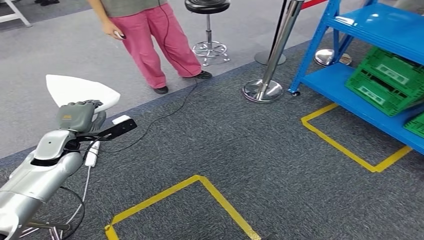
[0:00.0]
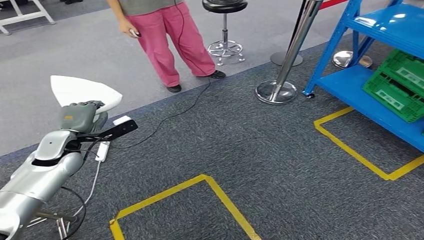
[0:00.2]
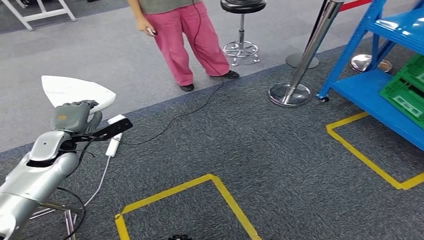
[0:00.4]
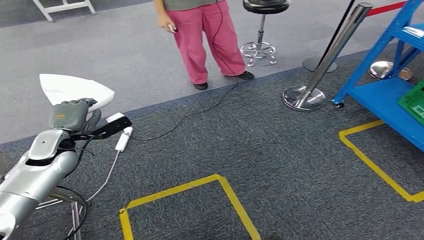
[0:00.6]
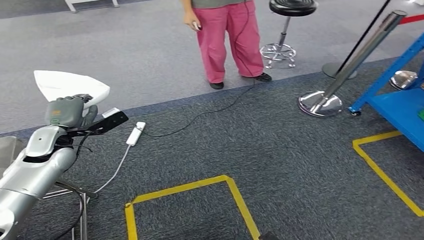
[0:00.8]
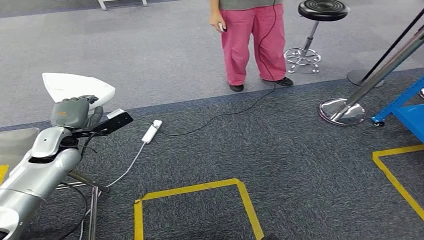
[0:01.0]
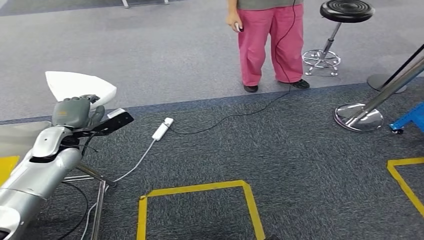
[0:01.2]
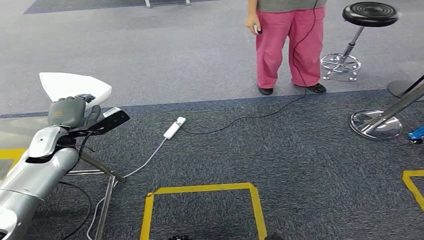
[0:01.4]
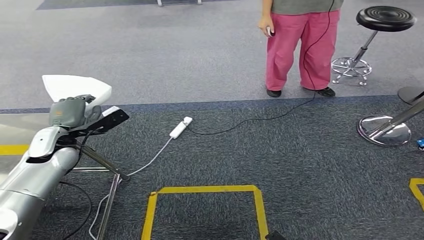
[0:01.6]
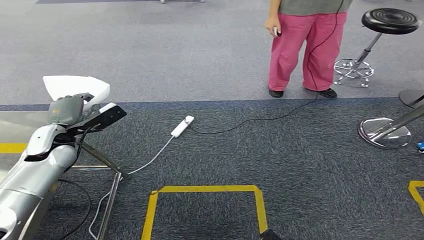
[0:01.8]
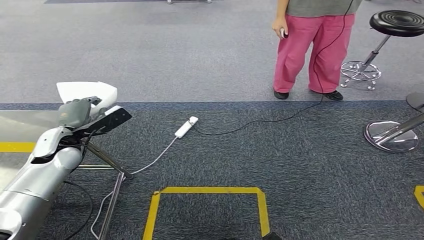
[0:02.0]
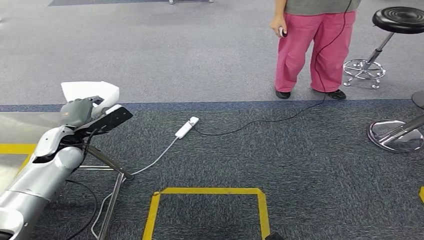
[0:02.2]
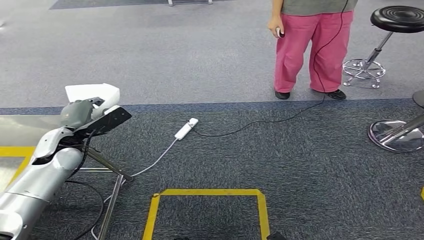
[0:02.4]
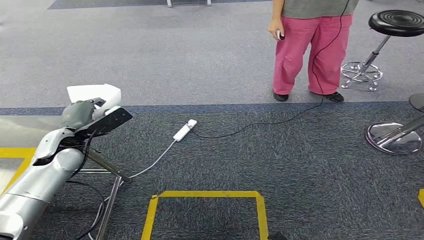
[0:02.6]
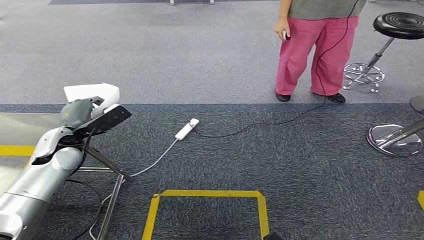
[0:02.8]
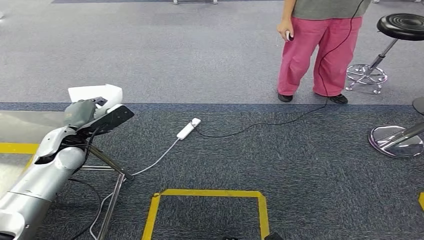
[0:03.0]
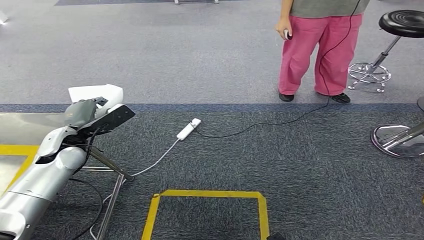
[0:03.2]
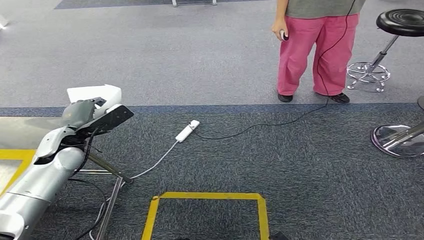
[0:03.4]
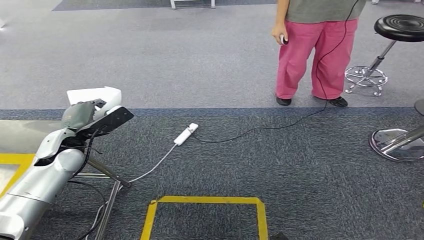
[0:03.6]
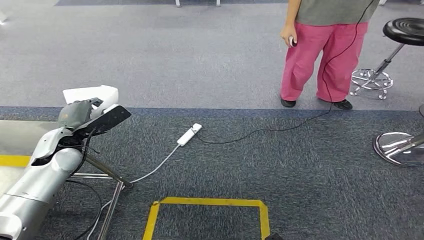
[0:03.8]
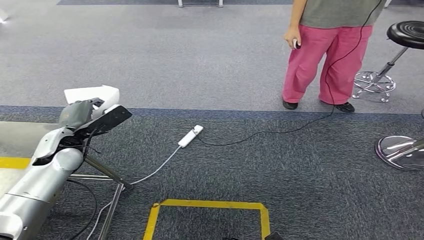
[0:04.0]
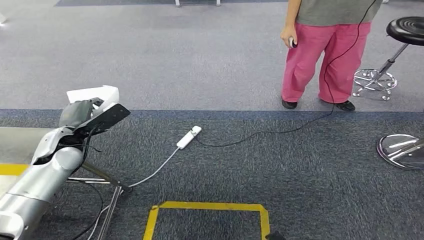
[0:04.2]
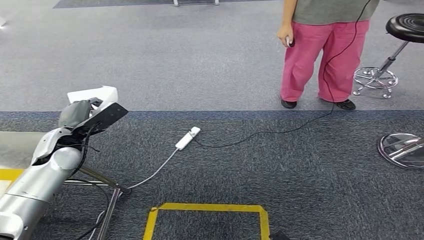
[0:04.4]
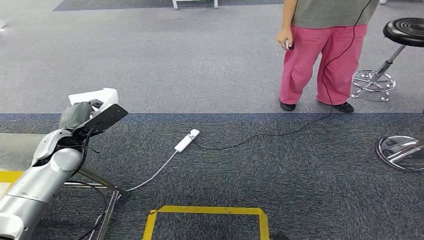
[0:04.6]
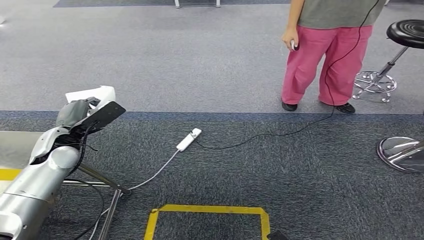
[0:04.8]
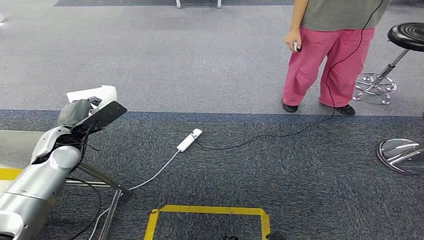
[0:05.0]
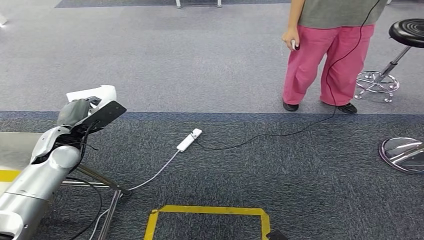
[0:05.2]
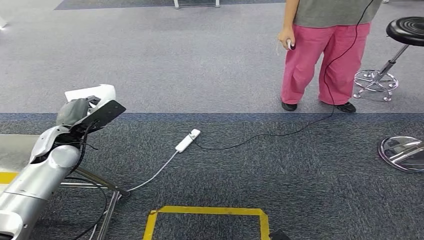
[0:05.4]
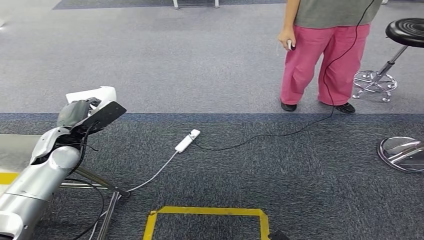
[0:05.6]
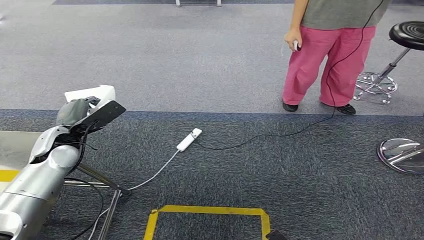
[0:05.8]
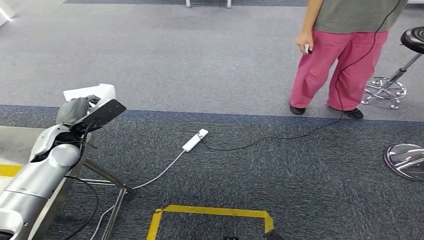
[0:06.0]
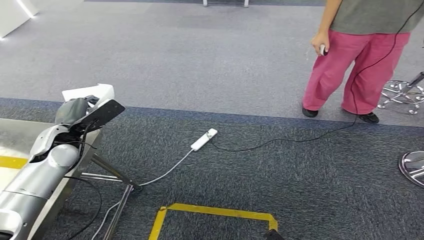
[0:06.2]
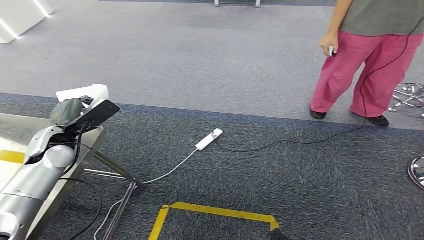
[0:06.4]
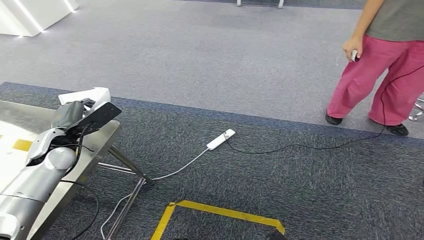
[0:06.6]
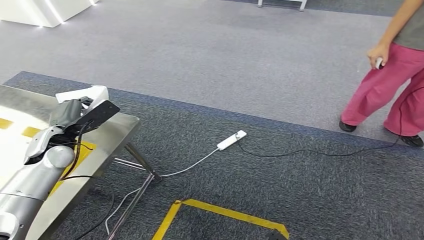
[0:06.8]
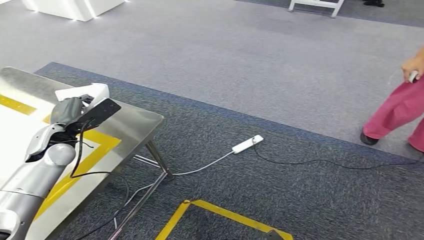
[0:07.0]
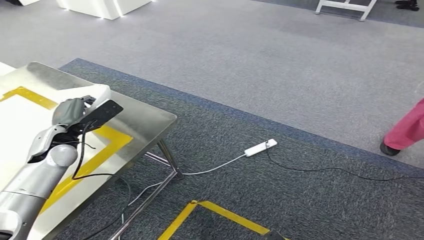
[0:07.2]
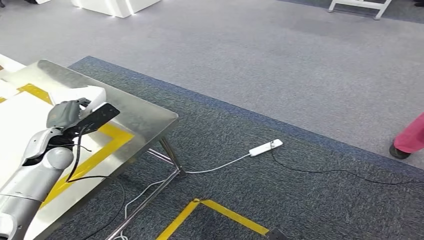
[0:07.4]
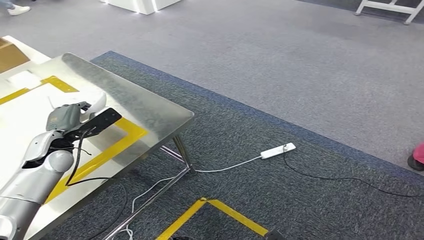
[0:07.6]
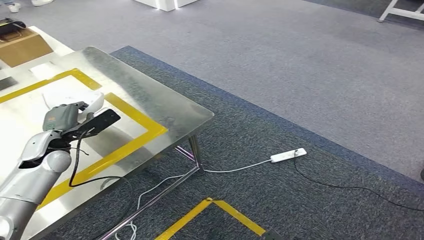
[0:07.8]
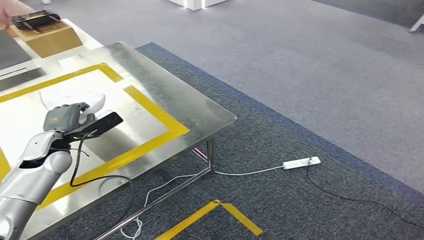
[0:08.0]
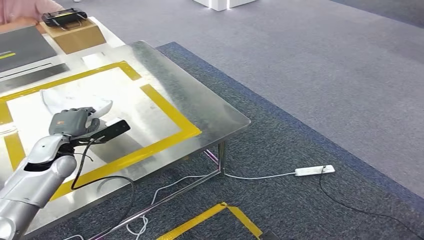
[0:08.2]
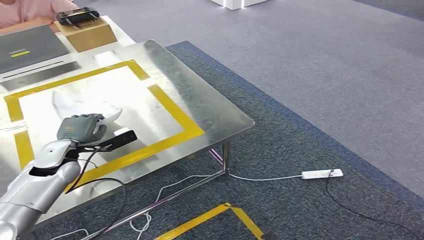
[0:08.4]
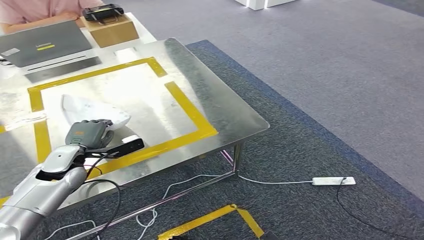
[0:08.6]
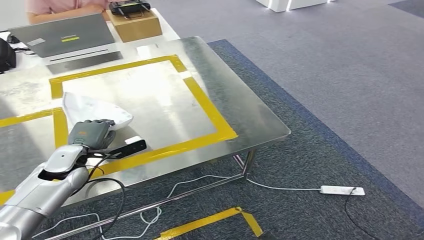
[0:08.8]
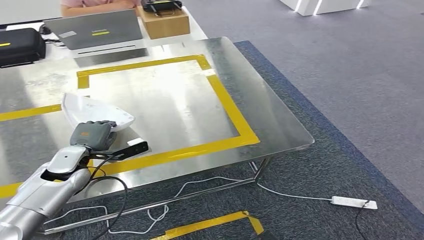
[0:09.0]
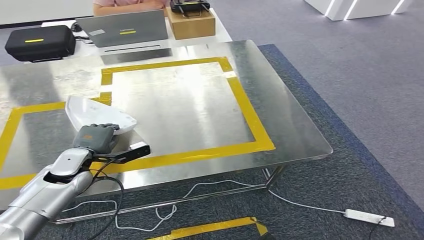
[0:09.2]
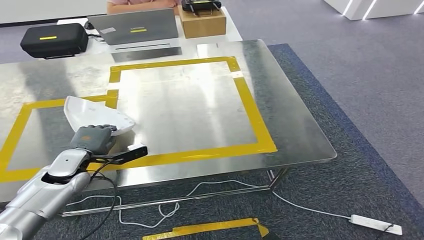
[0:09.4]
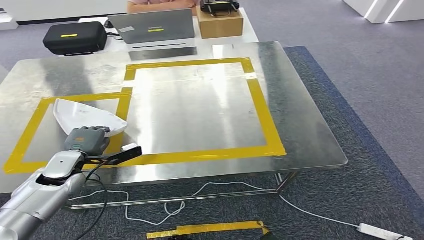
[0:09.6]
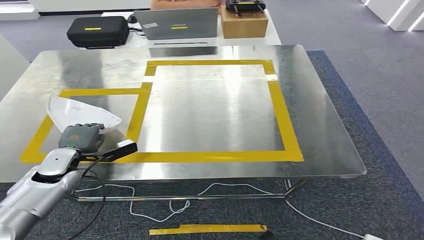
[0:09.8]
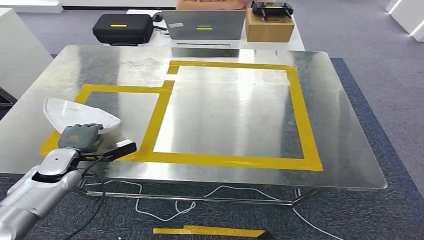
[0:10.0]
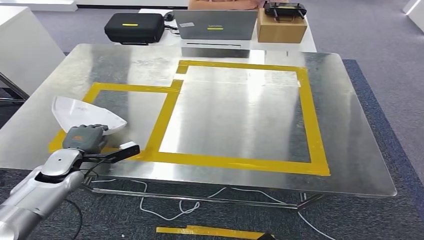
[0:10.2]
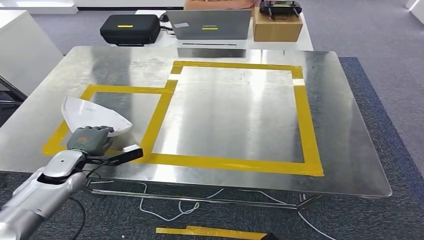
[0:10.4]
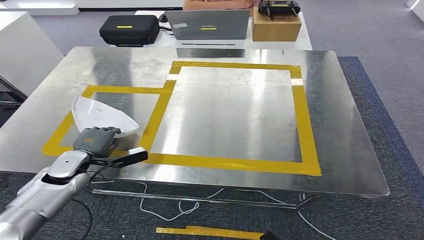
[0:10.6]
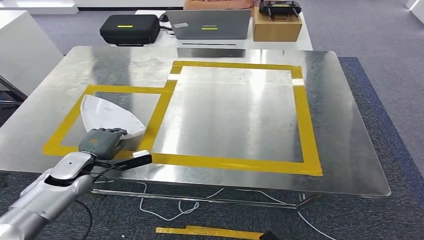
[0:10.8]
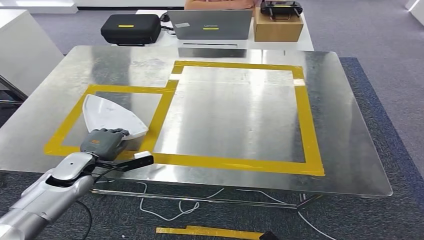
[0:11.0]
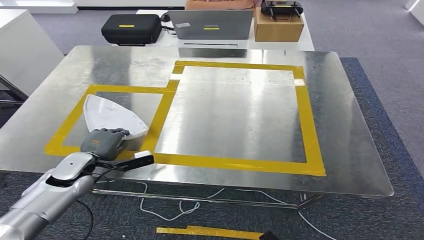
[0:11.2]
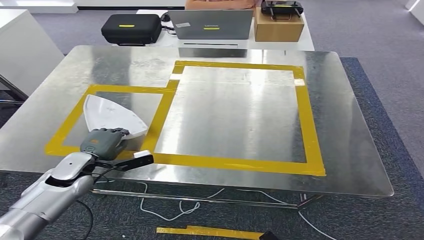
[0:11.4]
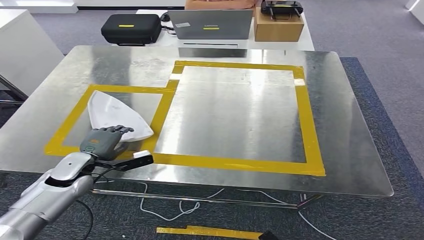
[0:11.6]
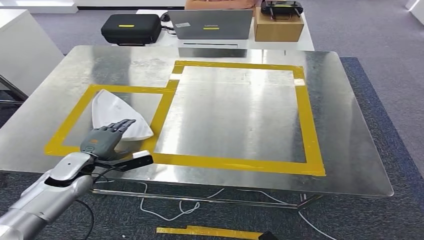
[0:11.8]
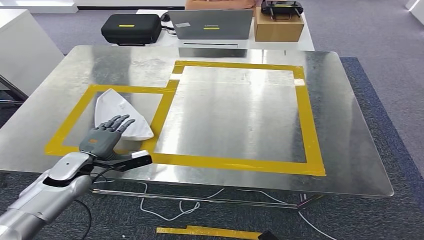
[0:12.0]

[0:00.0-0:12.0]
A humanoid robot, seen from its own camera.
Step, 0:00.0 to 0:08.0: Move the small component to the workbench.
0:03.0 to 0:04.4: The hands stay close to where they were, moving slightly.
0:10.4 to 0:12.0: The hands stay close to where they were, moving slightly.

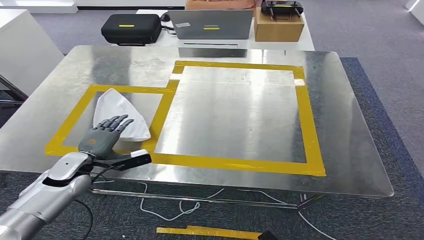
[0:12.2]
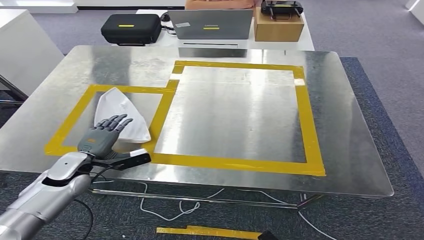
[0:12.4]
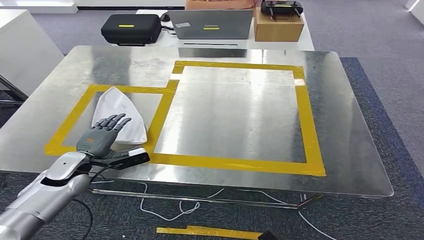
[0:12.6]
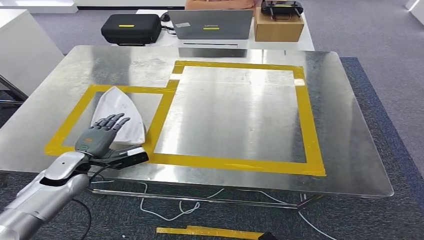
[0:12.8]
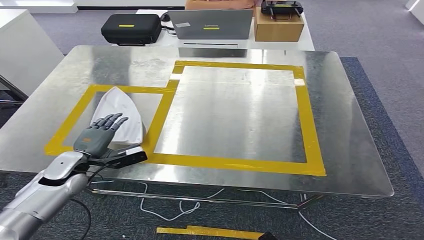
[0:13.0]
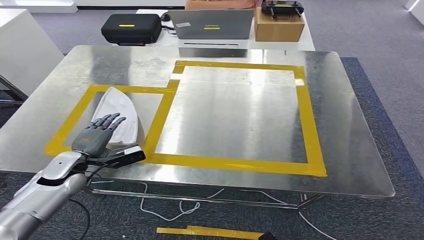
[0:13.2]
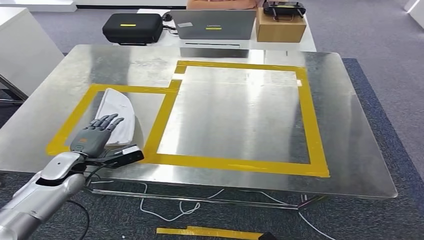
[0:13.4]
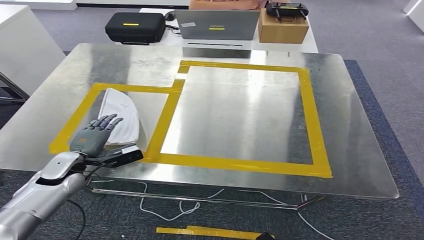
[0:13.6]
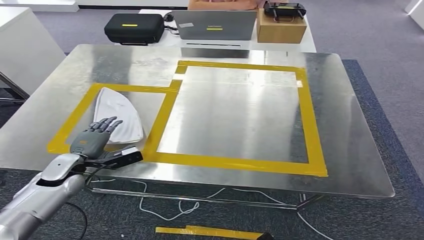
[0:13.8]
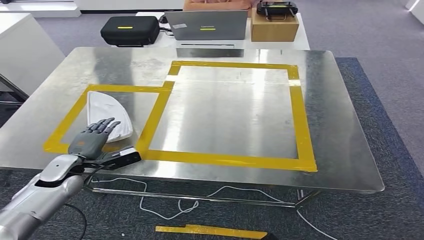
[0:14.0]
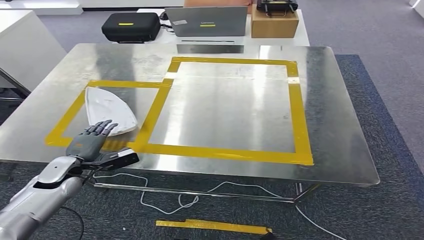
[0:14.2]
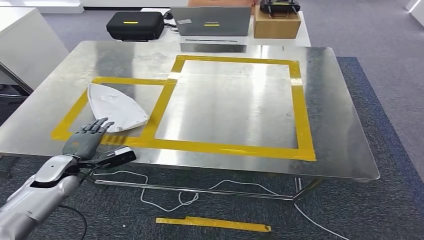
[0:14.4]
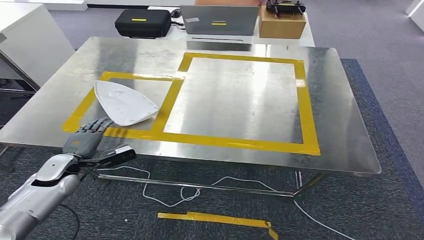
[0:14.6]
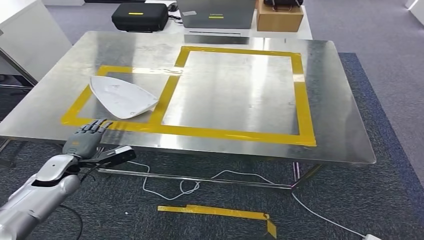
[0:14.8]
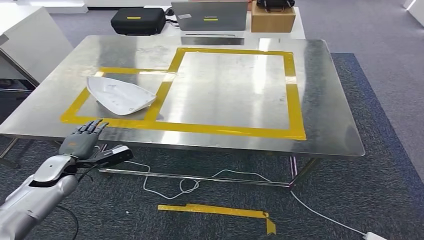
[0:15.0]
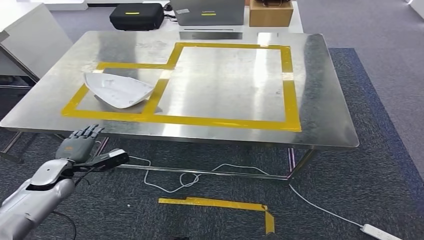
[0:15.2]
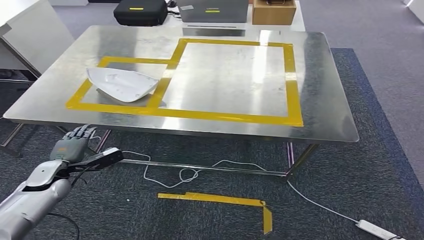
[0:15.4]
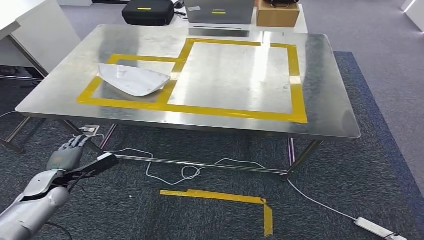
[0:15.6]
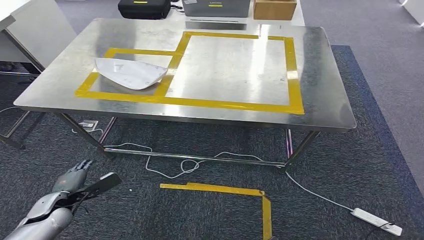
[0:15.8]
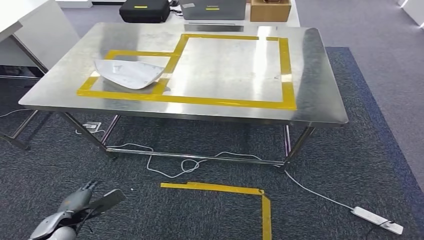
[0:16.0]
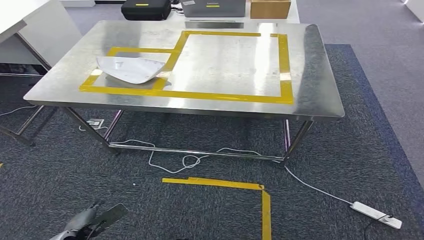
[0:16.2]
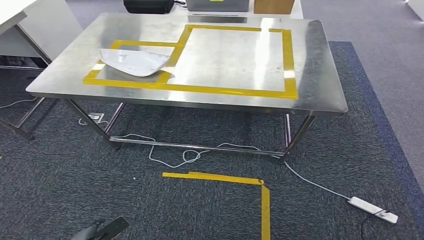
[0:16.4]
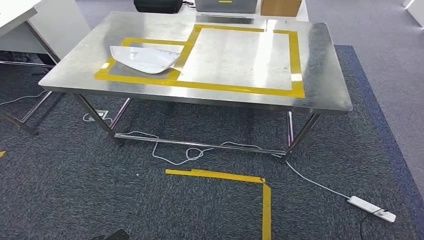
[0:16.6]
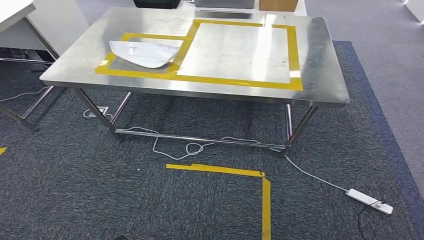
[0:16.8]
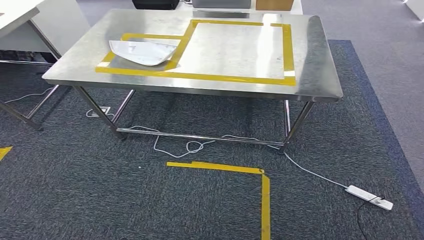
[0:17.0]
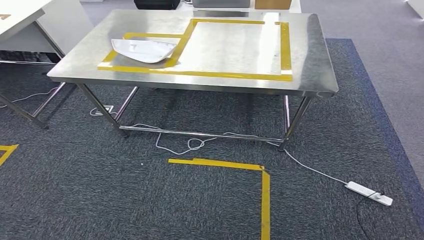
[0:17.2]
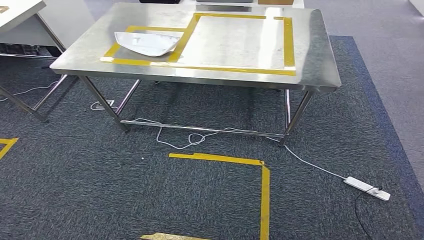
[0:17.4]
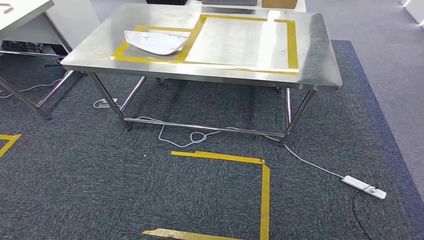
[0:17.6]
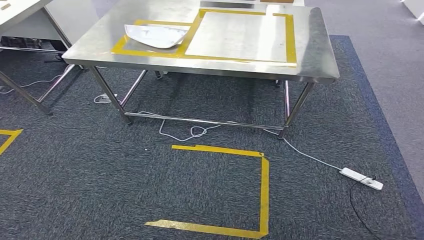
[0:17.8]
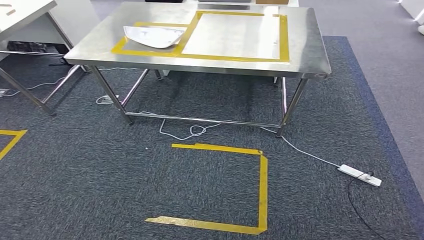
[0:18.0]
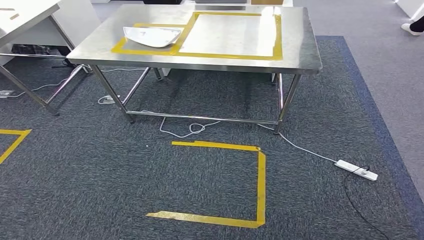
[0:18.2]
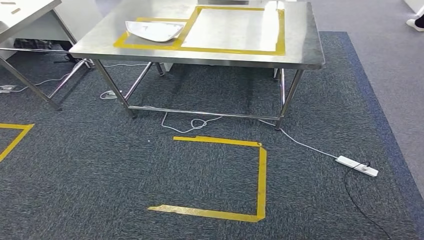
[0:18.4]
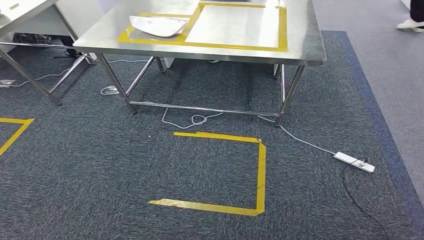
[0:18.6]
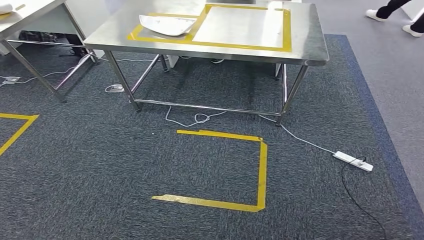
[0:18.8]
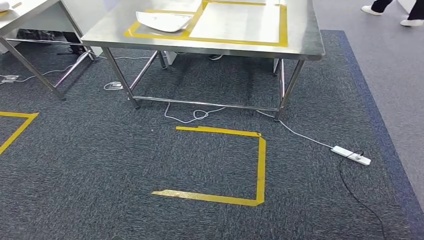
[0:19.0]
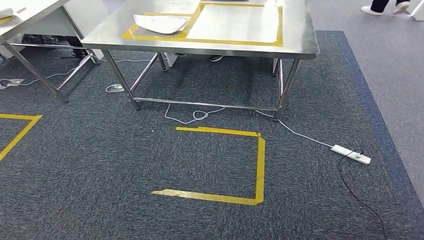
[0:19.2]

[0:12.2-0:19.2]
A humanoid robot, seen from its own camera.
0:12.2 to 0:13.6: There are only small adjustments of the hands.
